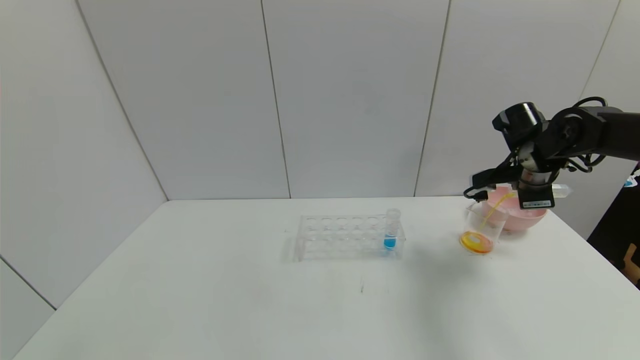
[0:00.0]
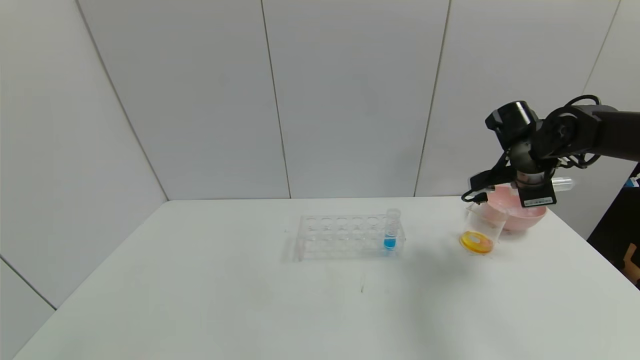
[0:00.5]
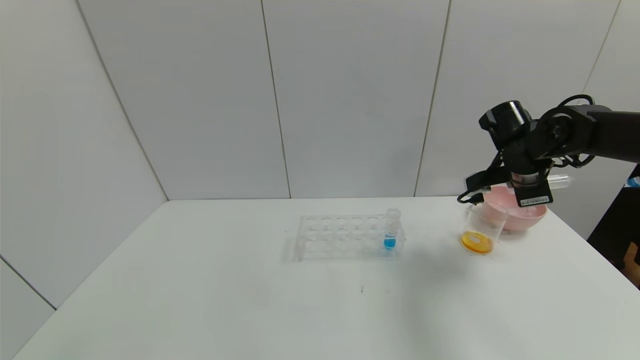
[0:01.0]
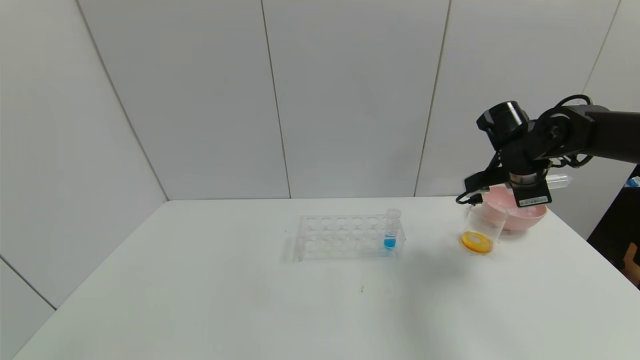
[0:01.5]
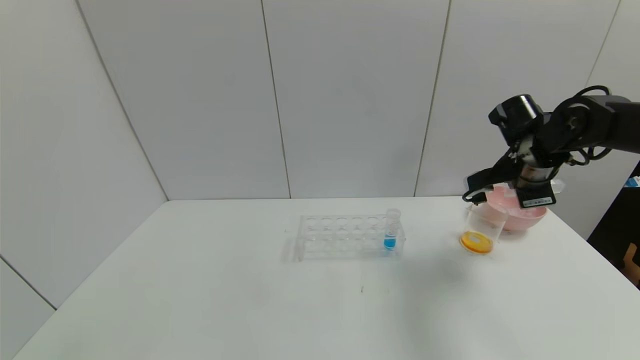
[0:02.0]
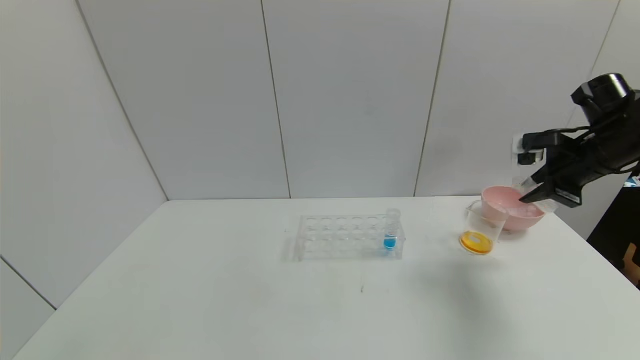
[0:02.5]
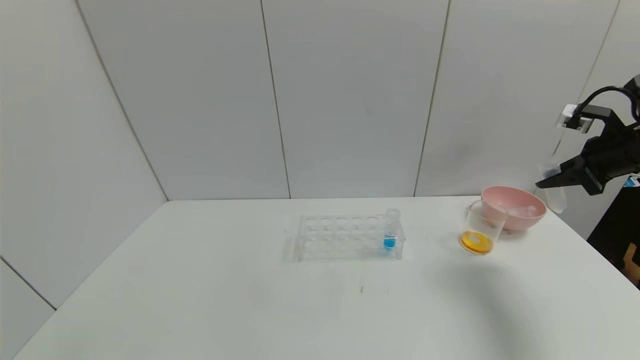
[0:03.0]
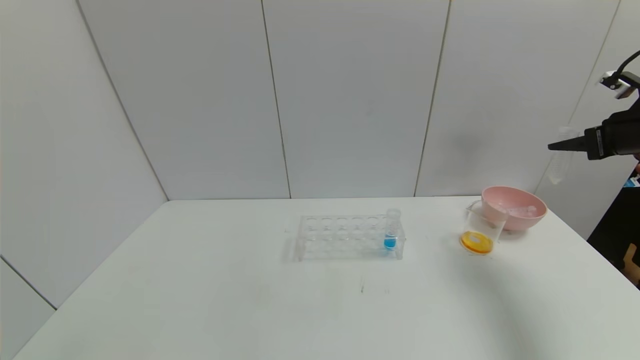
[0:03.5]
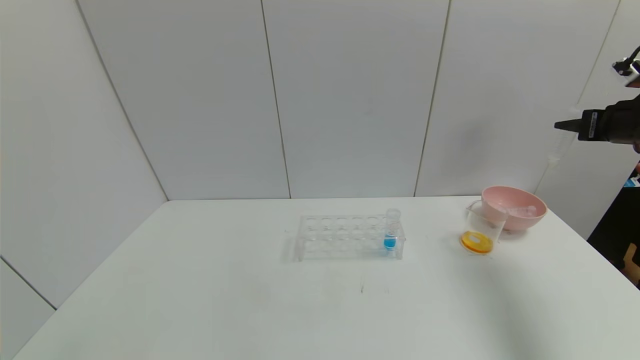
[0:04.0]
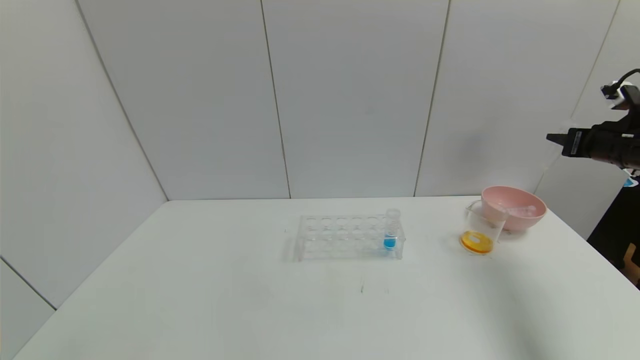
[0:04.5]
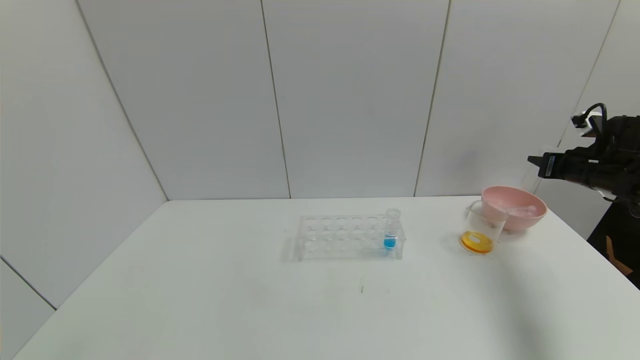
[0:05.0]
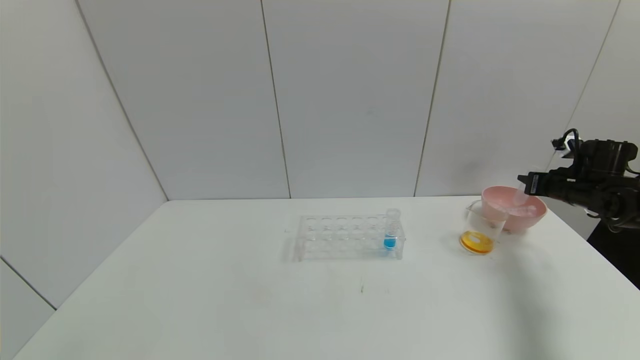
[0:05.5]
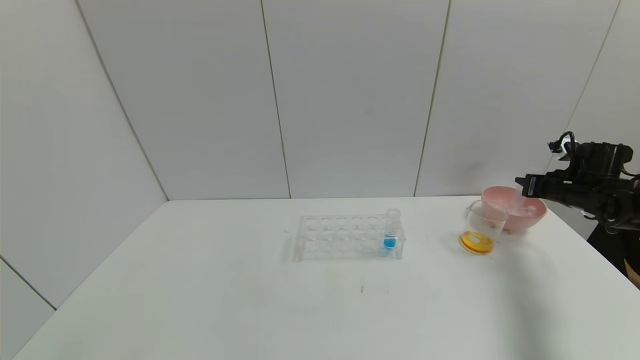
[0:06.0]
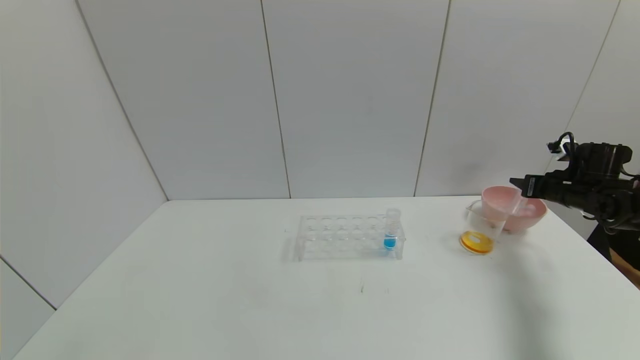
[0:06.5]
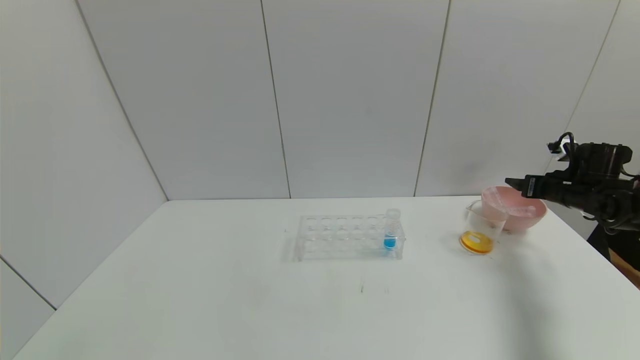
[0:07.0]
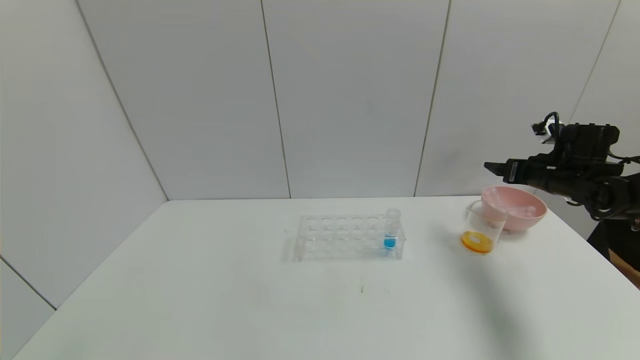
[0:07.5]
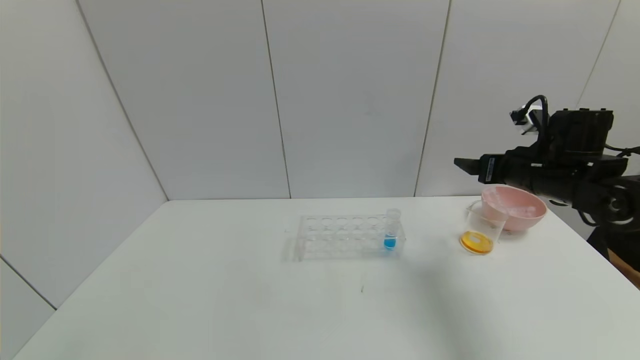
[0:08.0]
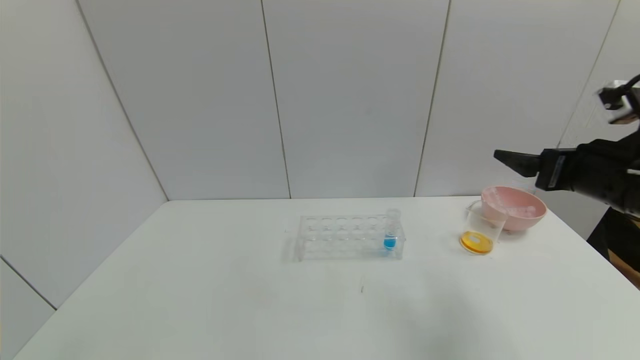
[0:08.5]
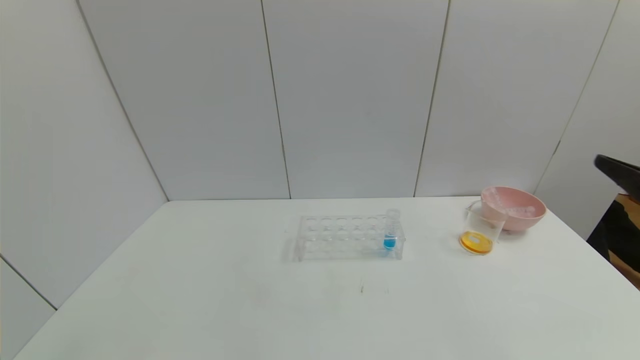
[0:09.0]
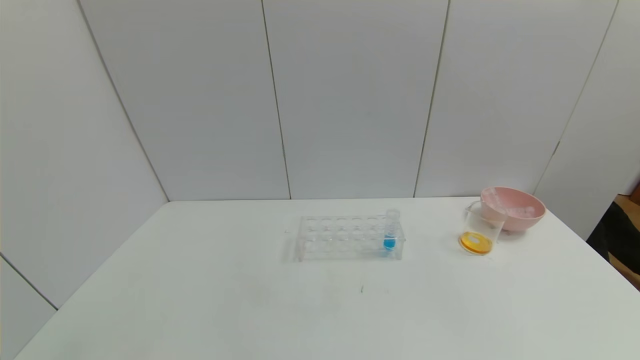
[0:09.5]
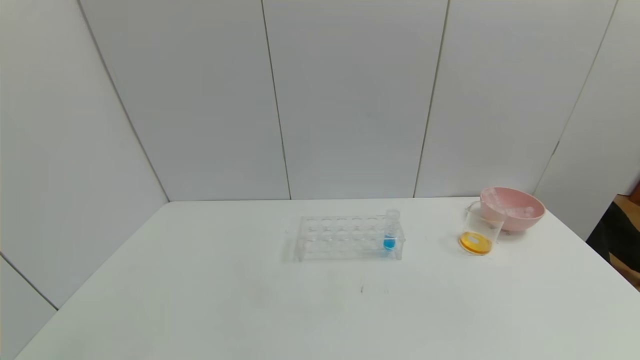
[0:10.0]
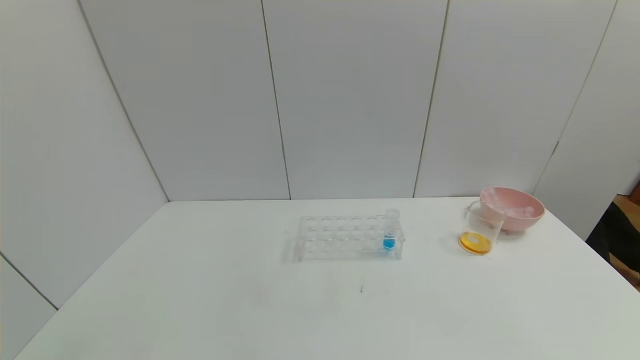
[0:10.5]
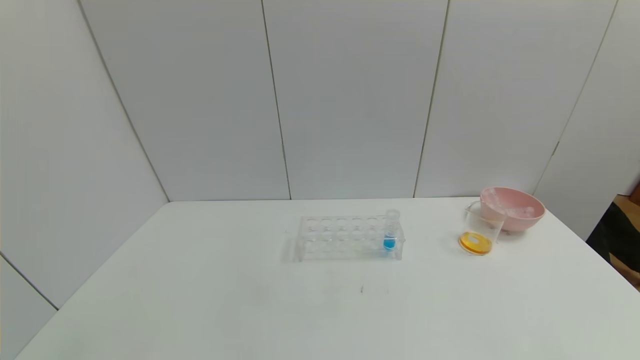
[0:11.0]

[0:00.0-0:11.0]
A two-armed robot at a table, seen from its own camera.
Task of the whole recording: pick up the test tube with yellow pigment and the test tube with red pigment by grippers and pour them into the beaker.
Step, 0:00.0 to 0:02.0: Pour the yellow reagent into the graduated cylinder with the right gripper.
Step, 0:02.5 to 0:06.5: Place the test tube into the bowl with the right gripper.
0:00.0 to 0:02.0: The grippers make only small movements.
0:02.0 to 0:03.5: The right gripper shifts some 15 cm to the right and upward.
0:03.5 to 0:05.5: The right gripper moves downward and forward, about 15 cm.
0:05.5 to 0:07.5: The right gripper is displaced to the left by approximately 5 cm, and opens its fingers.
0:07.5 to 0:09.0: The right gripper shifts roughly 30 cm backward.
0:09.0 to 0:11.0: The right gripper shifts about 25 cm downward and backward.
